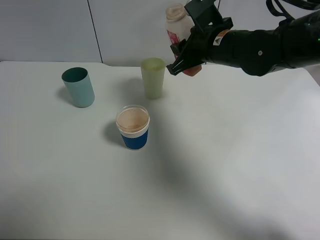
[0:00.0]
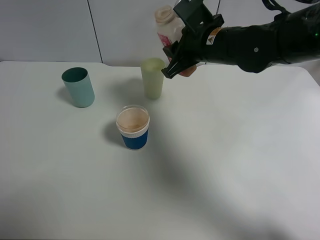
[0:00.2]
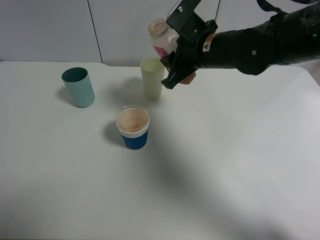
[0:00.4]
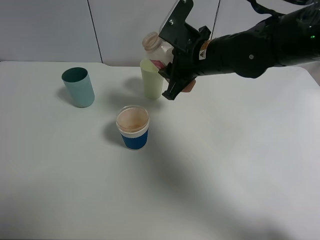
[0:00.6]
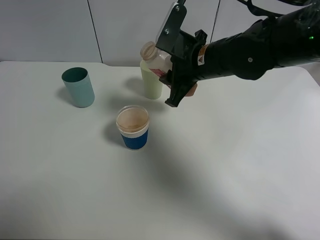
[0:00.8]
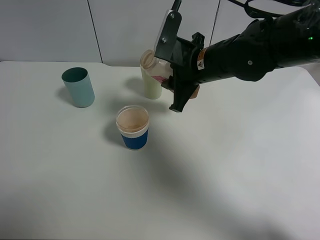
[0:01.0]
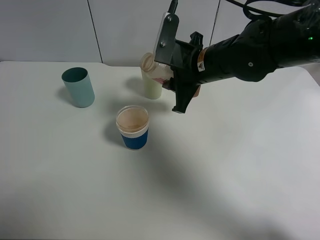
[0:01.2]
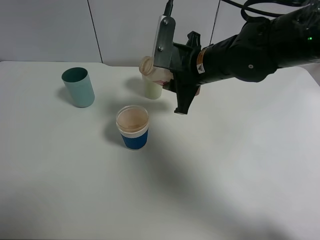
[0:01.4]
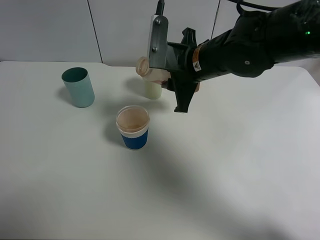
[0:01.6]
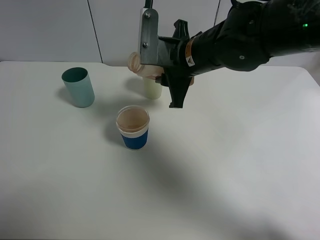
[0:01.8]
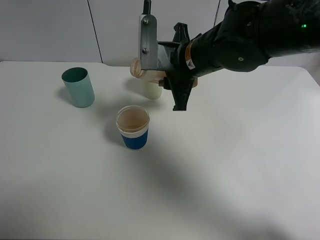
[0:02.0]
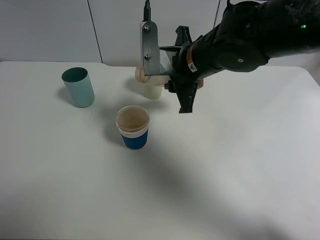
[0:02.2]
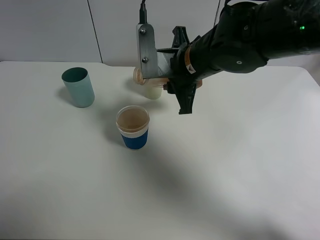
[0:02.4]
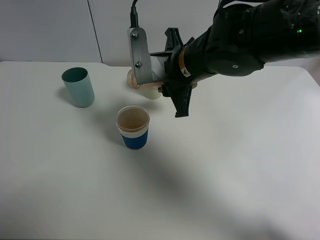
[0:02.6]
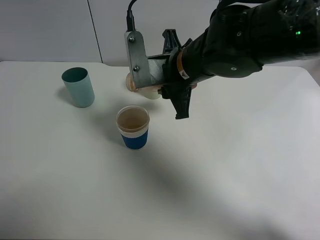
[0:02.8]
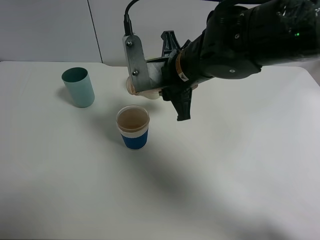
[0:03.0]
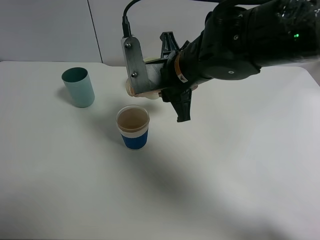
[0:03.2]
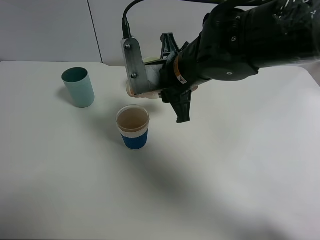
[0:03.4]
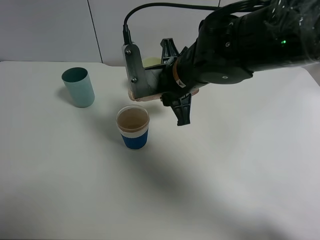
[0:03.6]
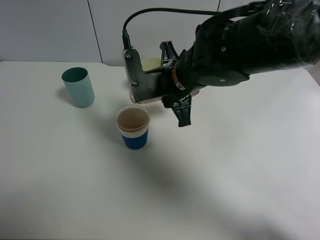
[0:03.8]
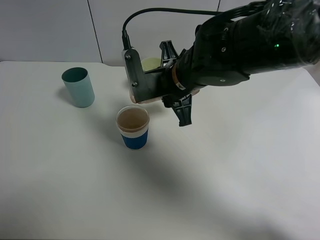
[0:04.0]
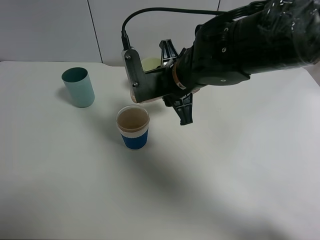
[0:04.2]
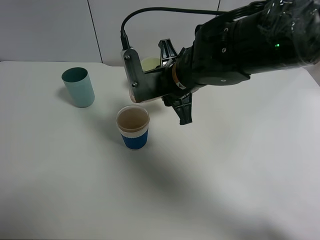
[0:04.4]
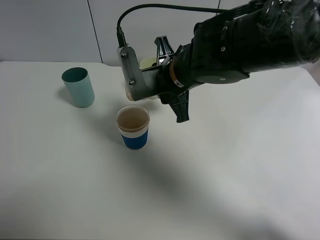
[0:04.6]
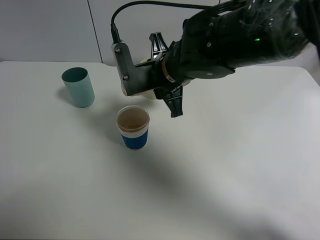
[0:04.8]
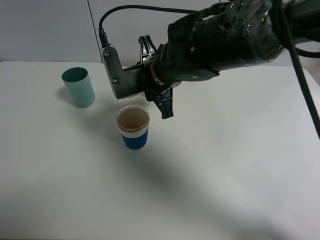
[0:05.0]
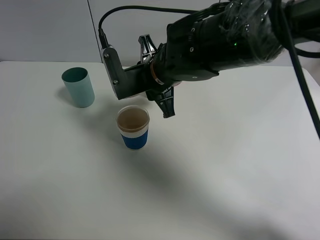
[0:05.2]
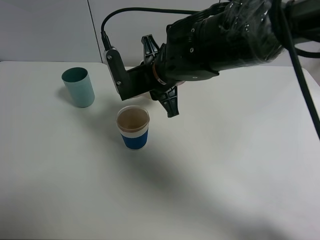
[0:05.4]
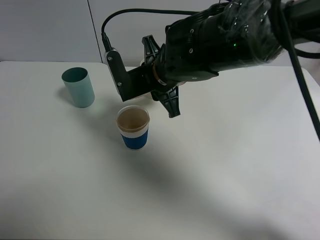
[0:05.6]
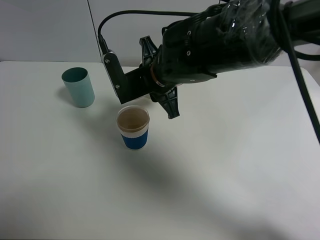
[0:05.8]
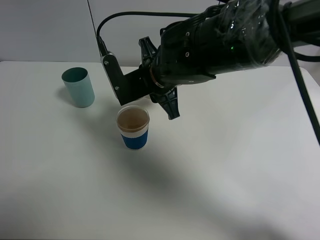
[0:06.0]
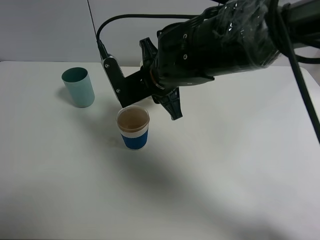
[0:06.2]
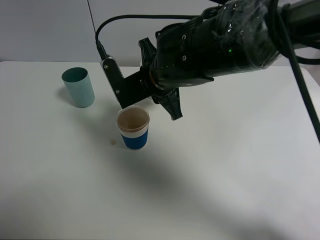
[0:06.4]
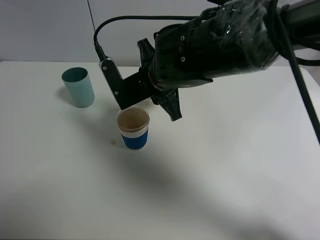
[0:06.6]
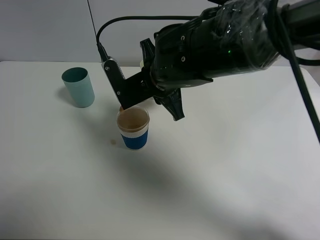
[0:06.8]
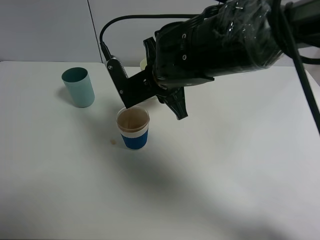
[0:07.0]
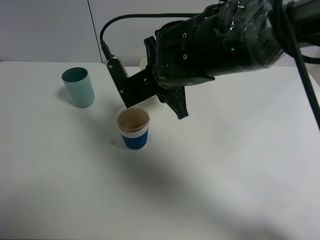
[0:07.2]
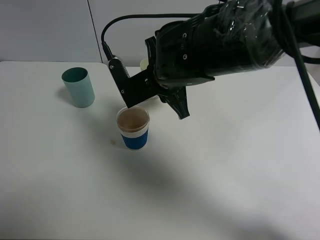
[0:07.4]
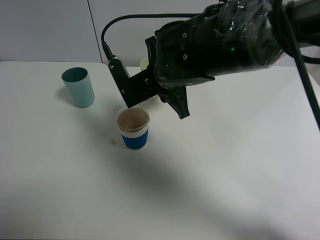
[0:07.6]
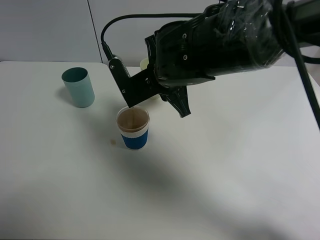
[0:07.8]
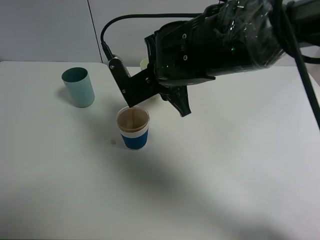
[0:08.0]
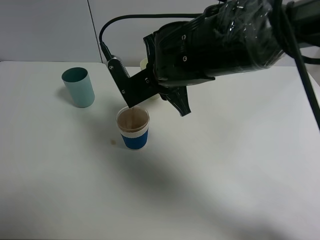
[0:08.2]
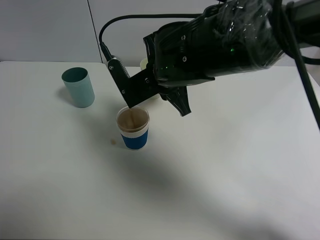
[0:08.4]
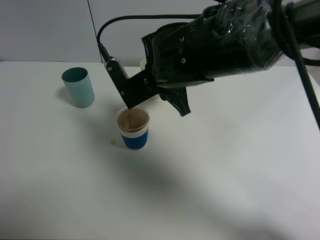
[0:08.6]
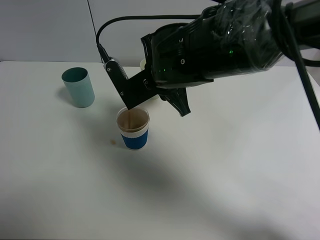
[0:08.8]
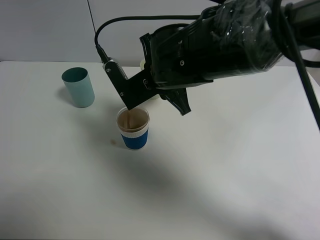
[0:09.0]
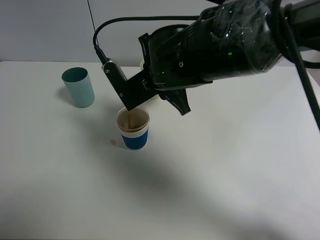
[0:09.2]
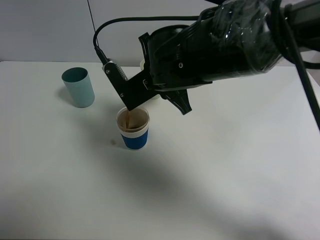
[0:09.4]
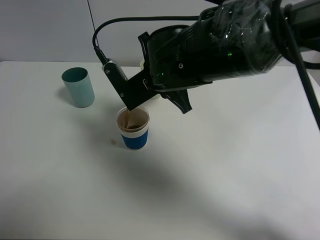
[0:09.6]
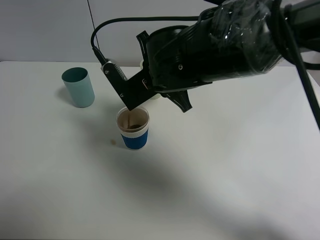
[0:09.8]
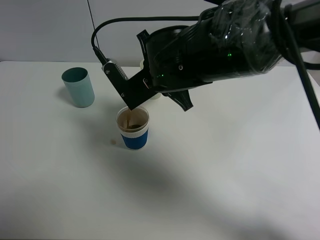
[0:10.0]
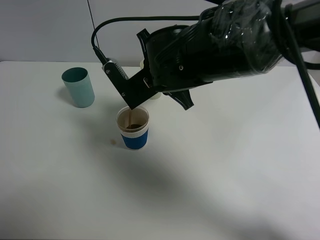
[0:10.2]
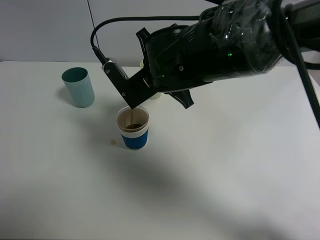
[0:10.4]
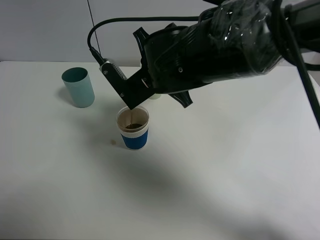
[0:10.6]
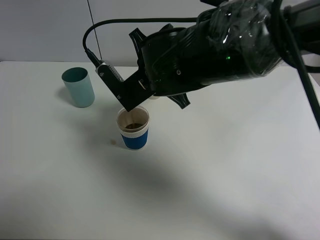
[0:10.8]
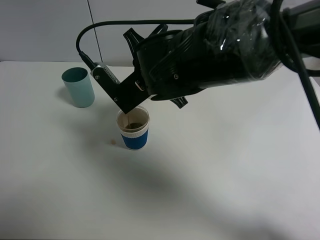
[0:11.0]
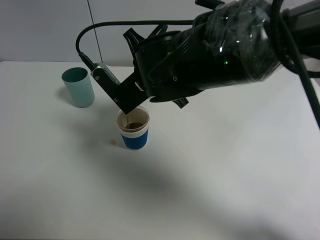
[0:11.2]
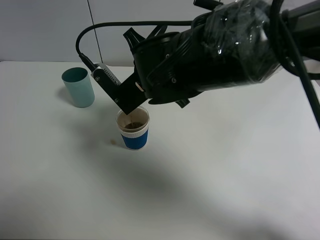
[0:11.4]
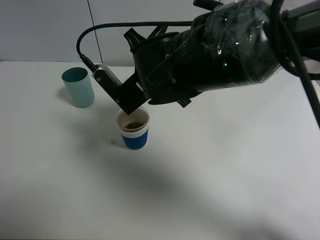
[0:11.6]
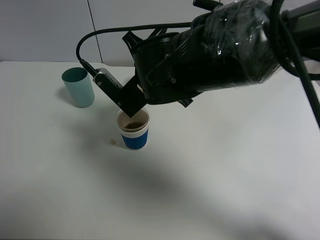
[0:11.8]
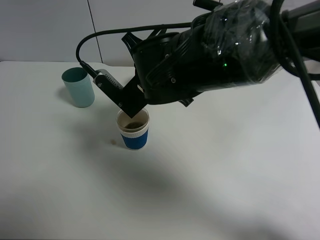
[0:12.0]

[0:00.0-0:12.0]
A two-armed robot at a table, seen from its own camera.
Task of the whole recording: use a clamp to hold the bottle of the drink, pour the beverage into a random cup, then clamp the cup containing the drink and pour the drink into another random cup.
0:00.0 to 0:01.6: The right gripper ends up some 5 cm from where it was.
0:01.6 to 0:03.0: The grippers move only a little.
0:03.0 to 0:06.0: The grippers move only a little.
0:06.0 to 0:10.4: There are only small adjustments of the grippers.
0:10.4 to 0:12.0: There are only small adjustments of the grippers.

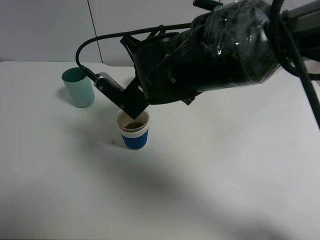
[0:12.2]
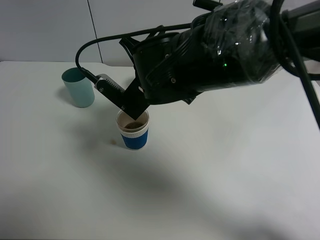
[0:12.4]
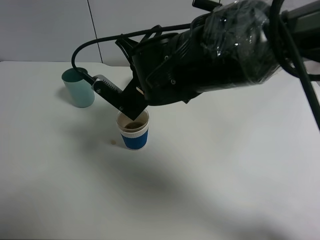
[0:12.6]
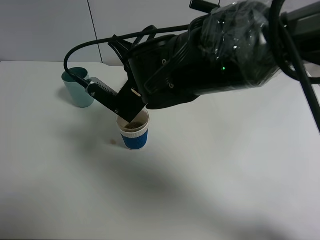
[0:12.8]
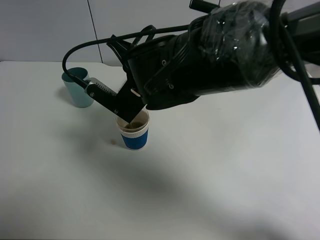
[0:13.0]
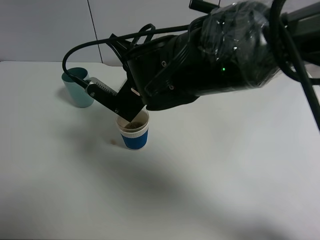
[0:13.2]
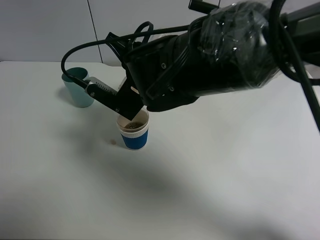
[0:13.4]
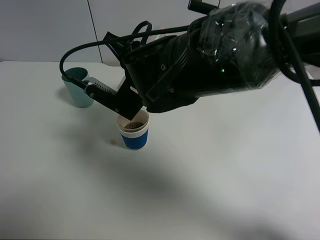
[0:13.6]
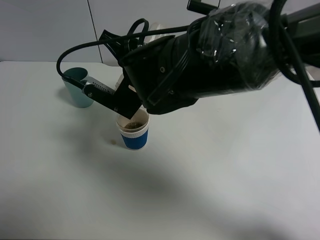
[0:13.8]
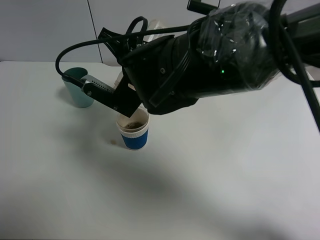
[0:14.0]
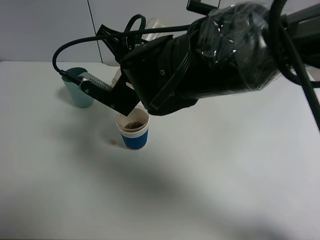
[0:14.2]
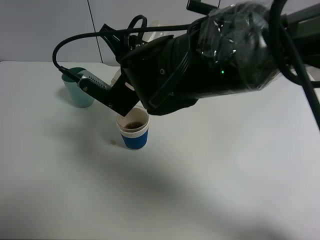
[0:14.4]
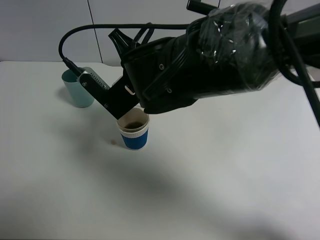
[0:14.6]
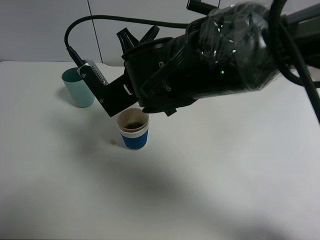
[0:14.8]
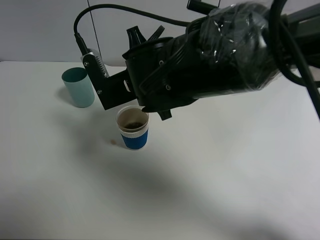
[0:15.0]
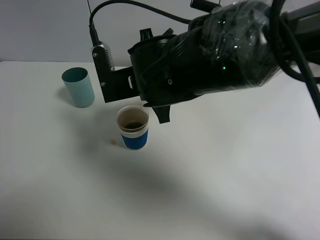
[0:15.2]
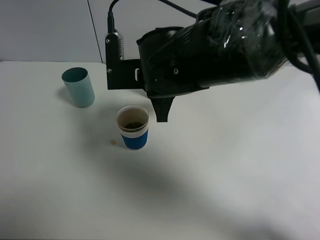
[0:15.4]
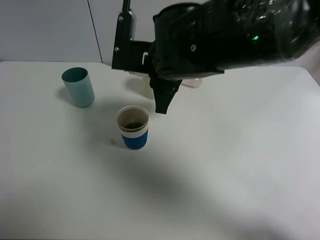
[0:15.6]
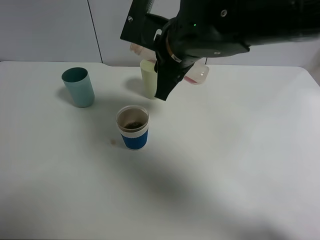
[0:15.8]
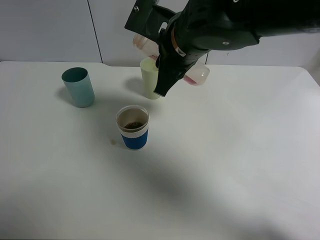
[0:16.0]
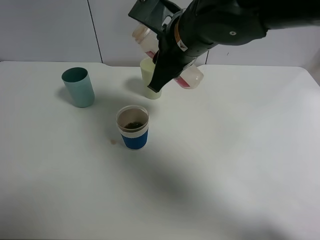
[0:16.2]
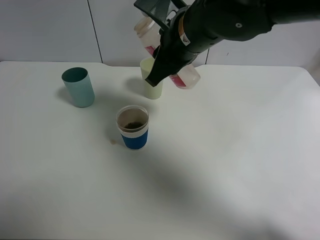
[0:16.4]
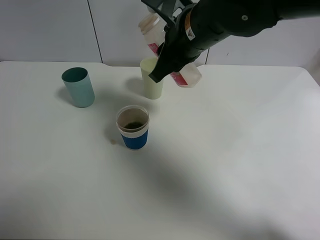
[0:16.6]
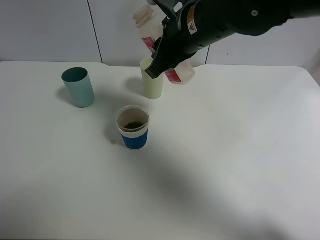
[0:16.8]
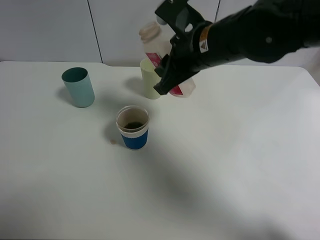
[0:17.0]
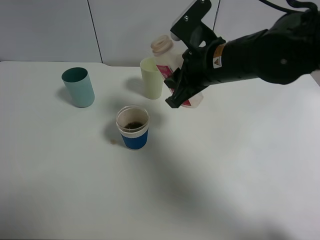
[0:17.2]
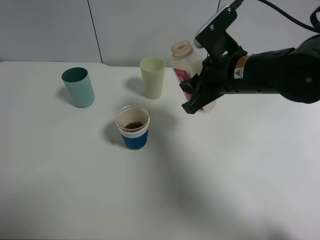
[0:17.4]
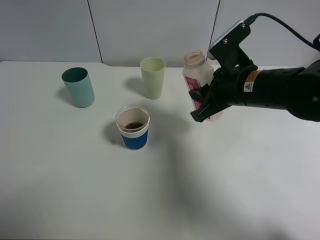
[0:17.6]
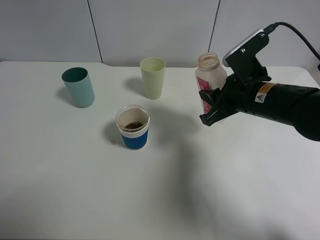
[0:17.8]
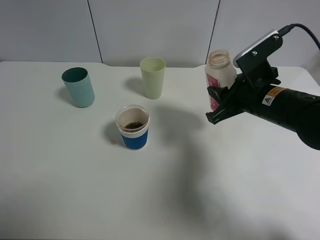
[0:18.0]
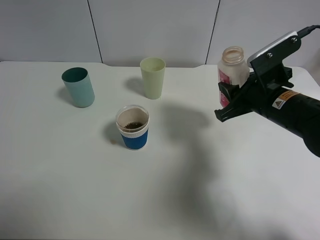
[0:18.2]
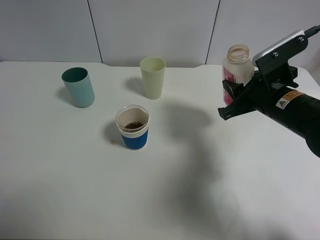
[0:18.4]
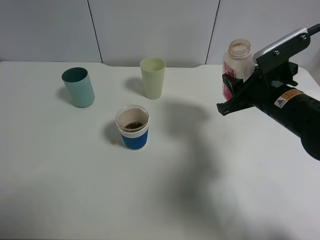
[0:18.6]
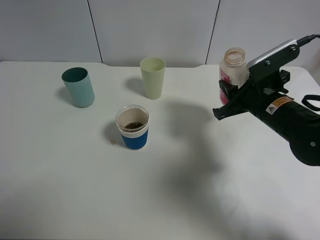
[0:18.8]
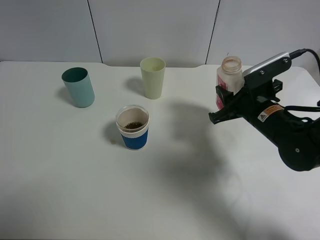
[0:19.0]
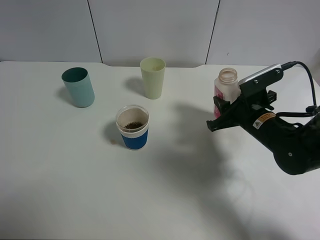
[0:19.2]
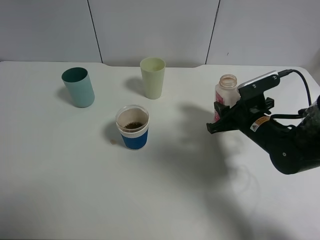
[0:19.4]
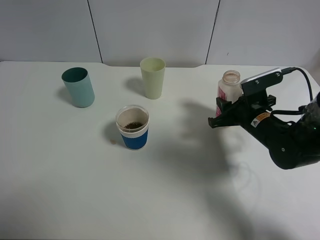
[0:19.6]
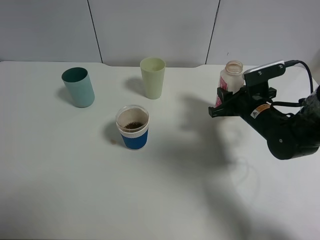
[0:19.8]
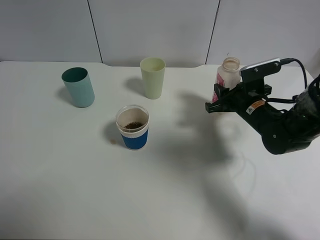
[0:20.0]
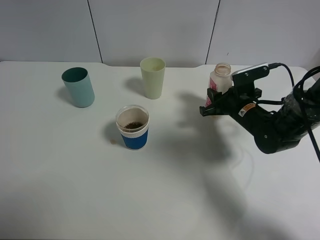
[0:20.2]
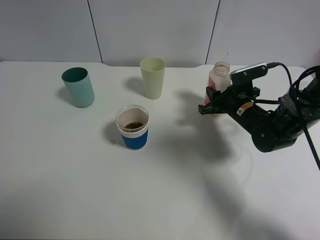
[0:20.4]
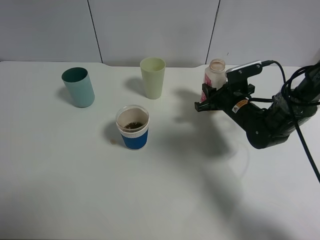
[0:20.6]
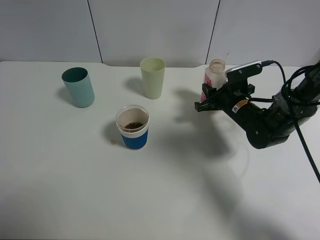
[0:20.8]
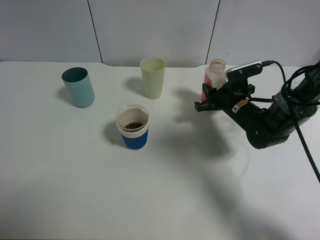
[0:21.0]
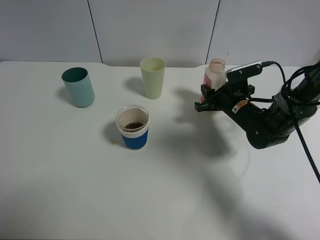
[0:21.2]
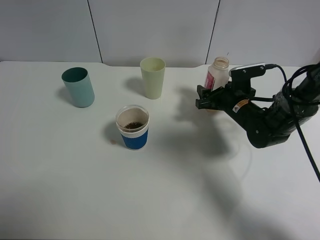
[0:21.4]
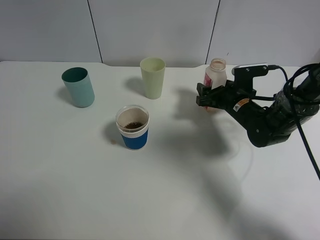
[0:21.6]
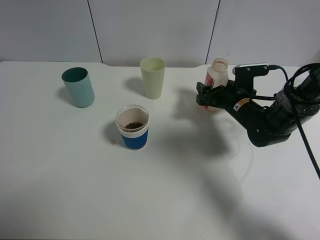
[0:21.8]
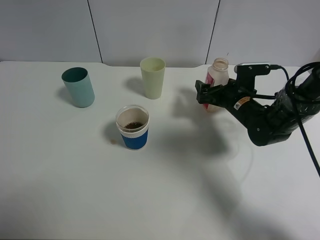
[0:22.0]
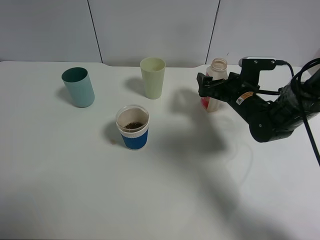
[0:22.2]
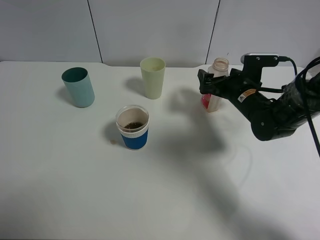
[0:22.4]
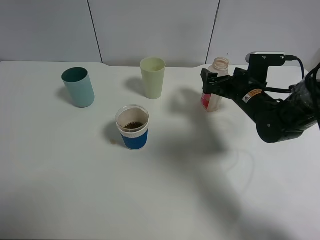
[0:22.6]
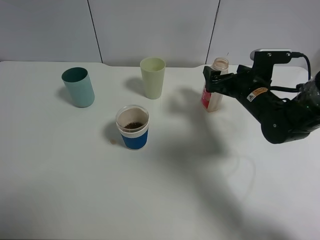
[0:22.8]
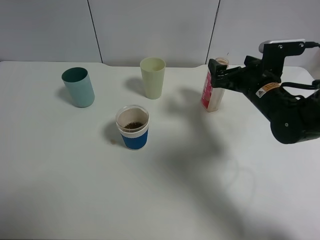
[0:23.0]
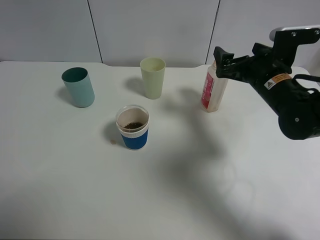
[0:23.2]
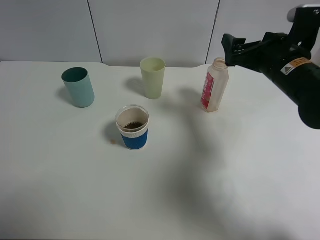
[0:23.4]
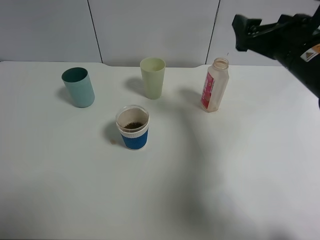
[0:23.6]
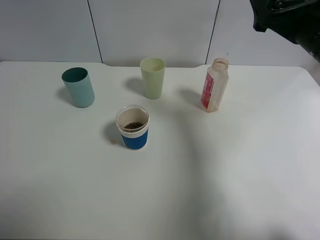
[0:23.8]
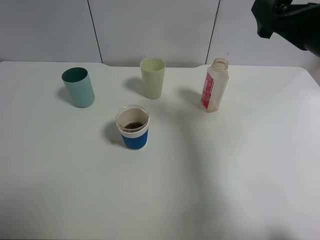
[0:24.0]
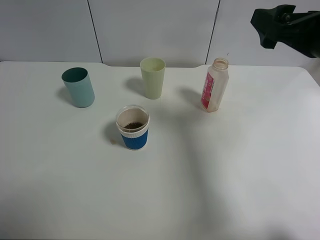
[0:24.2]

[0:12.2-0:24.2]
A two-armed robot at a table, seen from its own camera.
Task of the whole recording: use a clamp to hold the bottle of the drink, pour the beverage into a random cup, then clamp the cup containing the drink and pour the drink into another random cup.
Step, 0:12.2 to 0:15.4: Pour the drink into the paper cup with right gripper.
Step, 0:15.6 to 0:22.8: Place the drink bottle on the table with right gripper.
0:12.2 to 0:13.8: The grippers stay close to where they were, moving slightly.
0:15.2 to 0:16.6: The right gripper shifts some 10 cm upward and to the right.
0:16.6 to 0:18.2: The right gripper moves to the right and downward, some 20 cm.
0:18.2 to 0:19.8: The right gripper heads downward and forward, covering approximately 10 cm.
0:19.8 to 0:21.2: The right gripper ends up about 5 cm from where it was.
0:21.2 to 0:22.6: The right gripper opens.
0:22.6 to 0:24.2: The right gripper shifts some 20 cm upward and backward.
